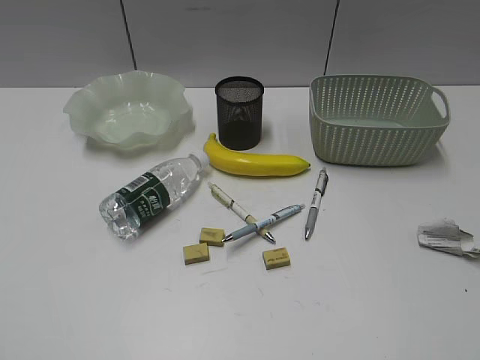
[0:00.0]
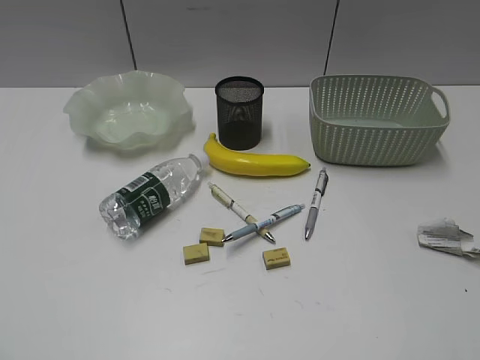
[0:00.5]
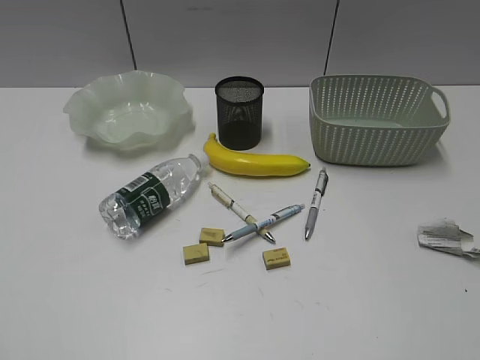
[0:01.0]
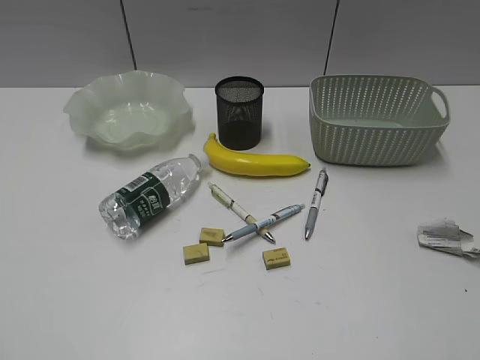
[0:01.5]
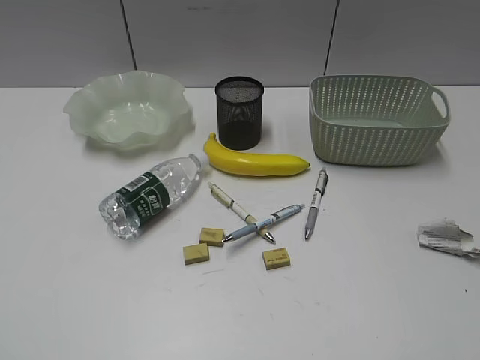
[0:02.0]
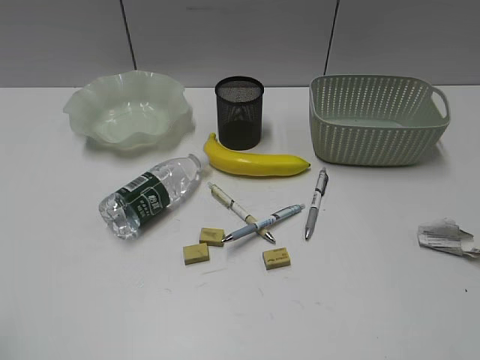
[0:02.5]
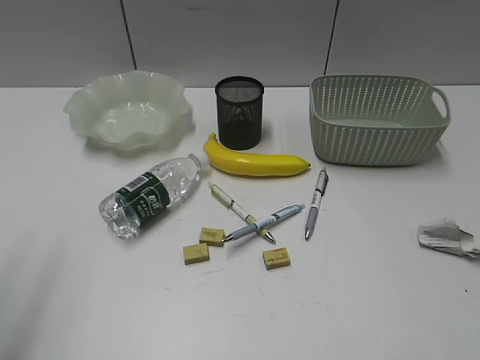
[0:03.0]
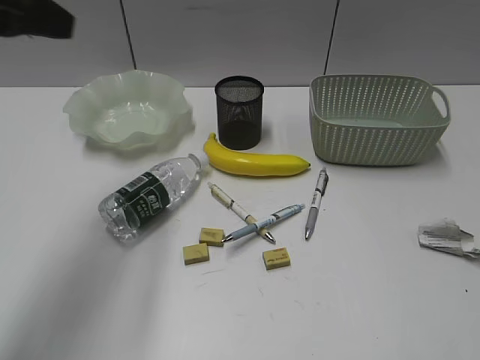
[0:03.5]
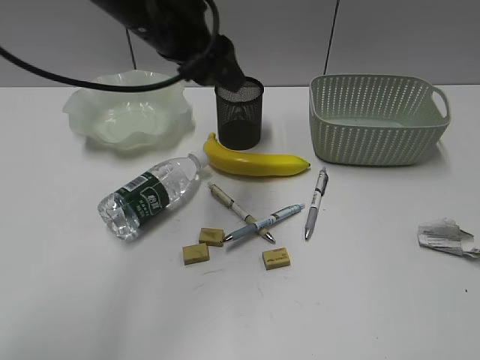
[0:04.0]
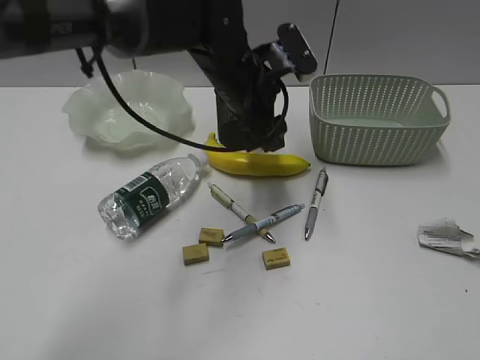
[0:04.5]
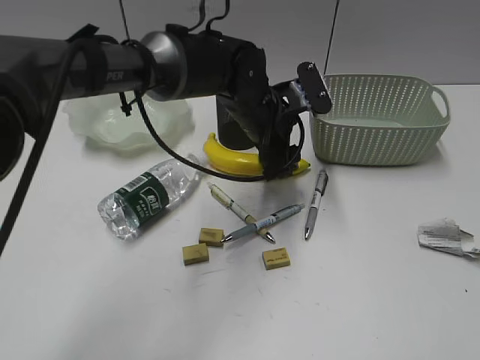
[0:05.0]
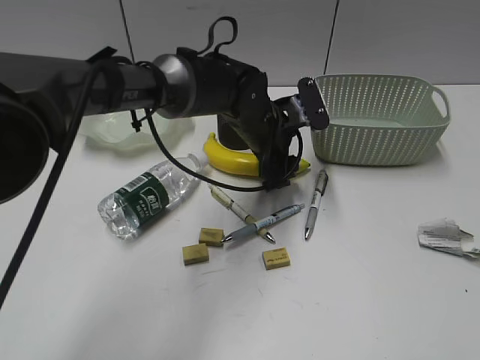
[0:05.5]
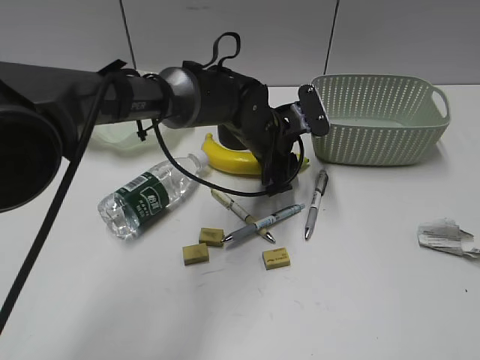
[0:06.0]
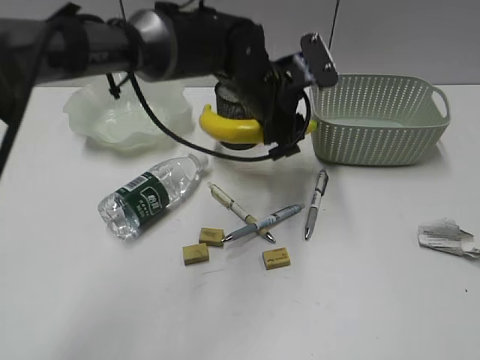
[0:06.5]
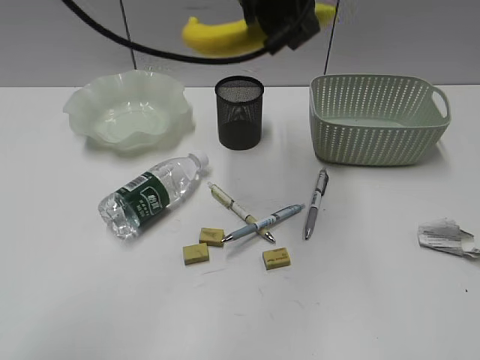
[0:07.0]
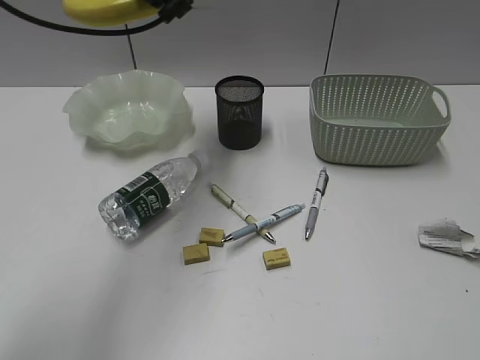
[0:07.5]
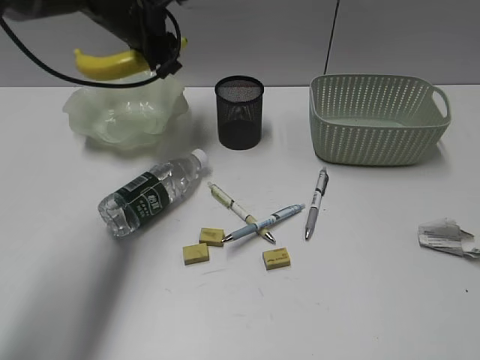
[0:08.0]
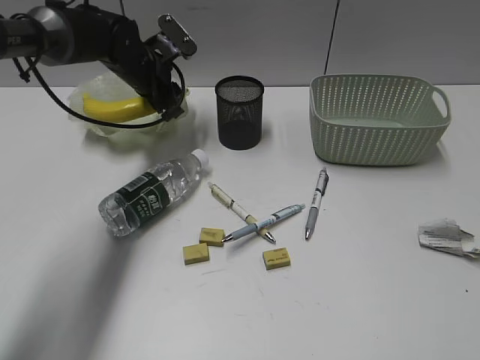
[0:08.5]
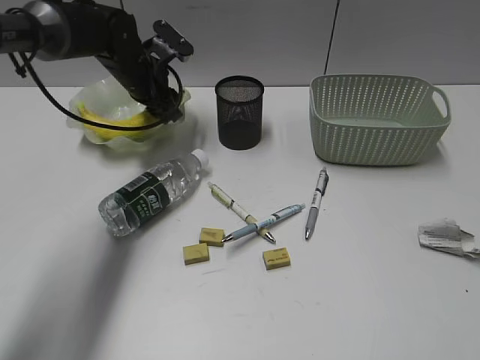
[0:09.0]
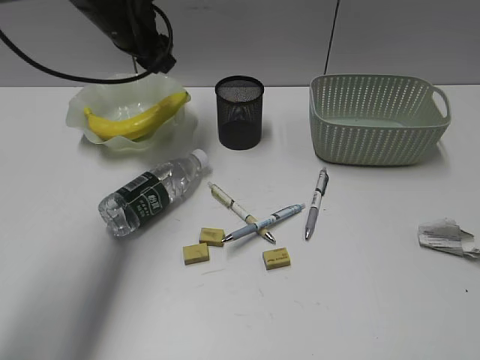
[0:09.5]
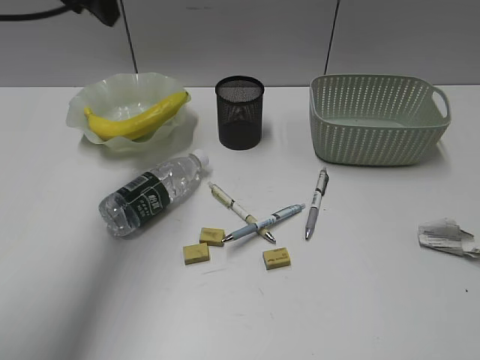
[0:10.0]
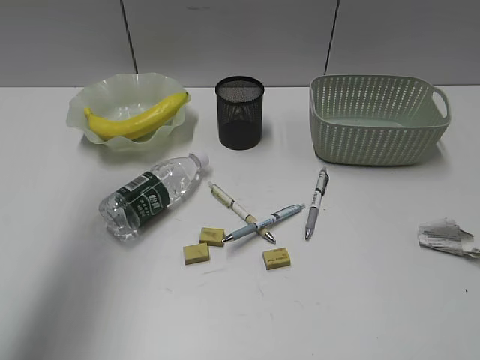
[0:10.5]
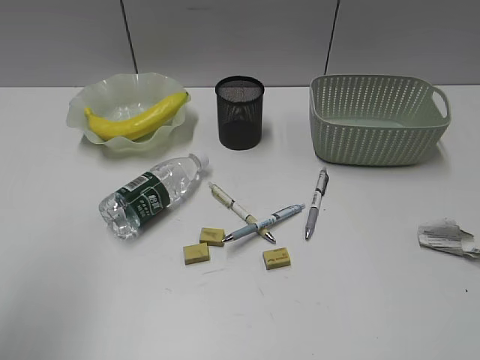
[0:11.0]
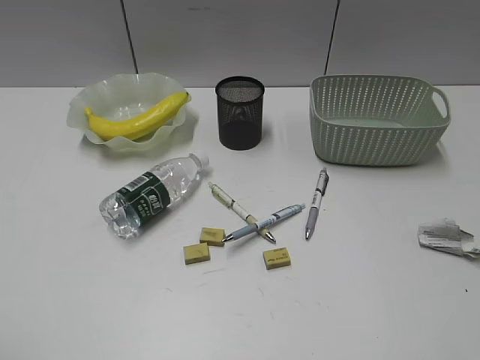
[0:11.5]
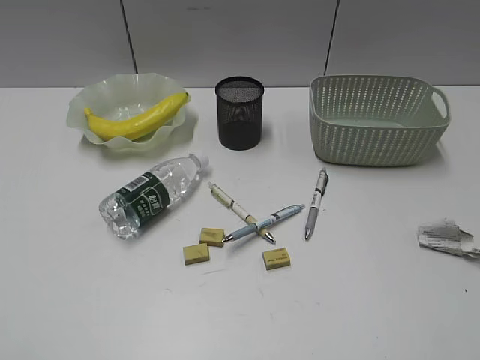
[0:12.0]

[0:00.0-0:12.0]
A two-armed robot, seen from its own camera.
Step, 0:02.5 to 0:06.0: Grasp the banana with left gripper.
Step, 0:06.5 to 0:09.0: Place the banana in the plate with left gripper.
0:02.0 to 0:04.0: The left gripper shifts about 40 cm forward and to the right, and opens.
0:04.0 to 0:06.0: The left gripper shifts roughly 20 cm downward and to the right, and closes up.
0:06.0 to 0:08.0: The left gripper shifts roughly 25 cm to the left, upward and forward.
0:08.0 to 0:10.0: The left gripper shifts about 15 cm upward and backward.
0:10.0 to 0:12.0: The left gripper travels backward by approximately 40 cm.

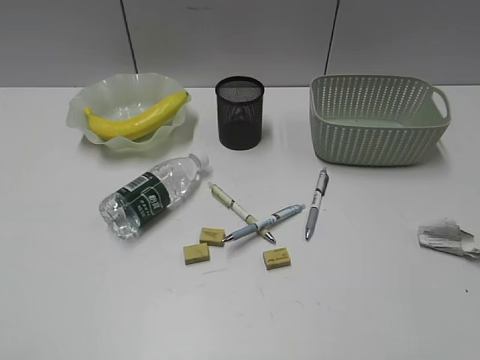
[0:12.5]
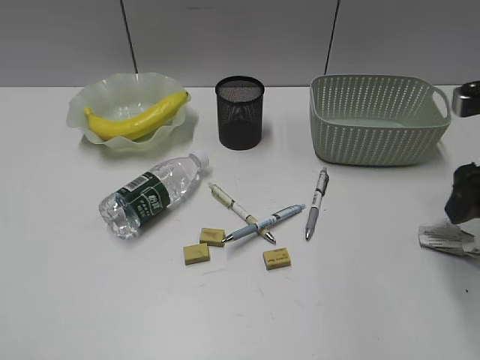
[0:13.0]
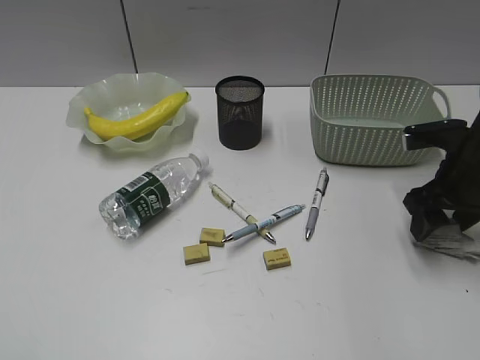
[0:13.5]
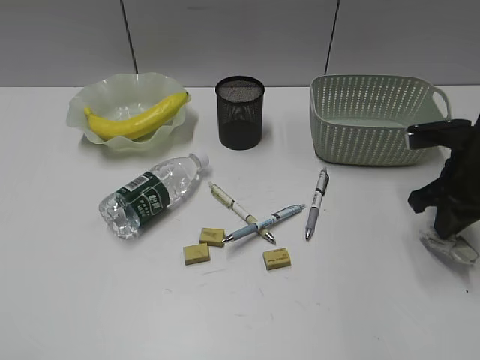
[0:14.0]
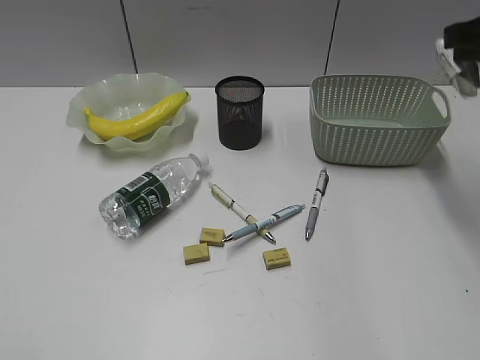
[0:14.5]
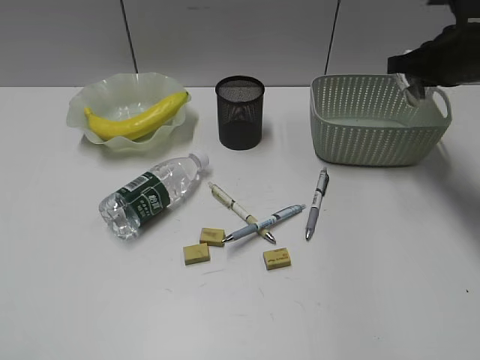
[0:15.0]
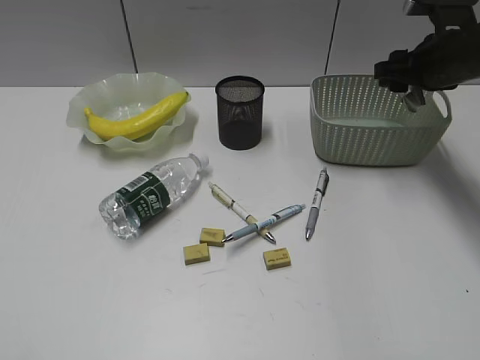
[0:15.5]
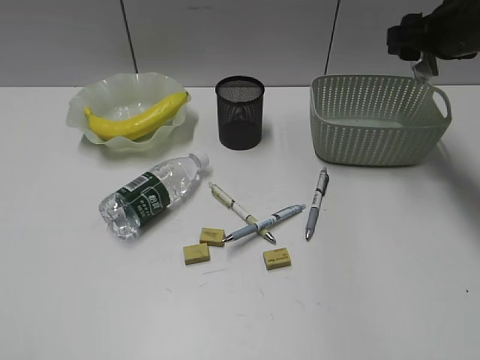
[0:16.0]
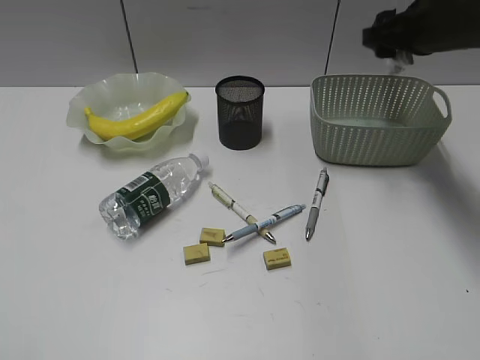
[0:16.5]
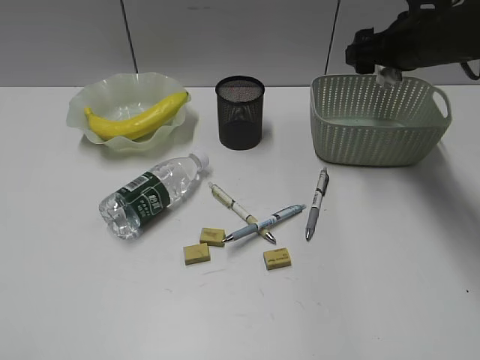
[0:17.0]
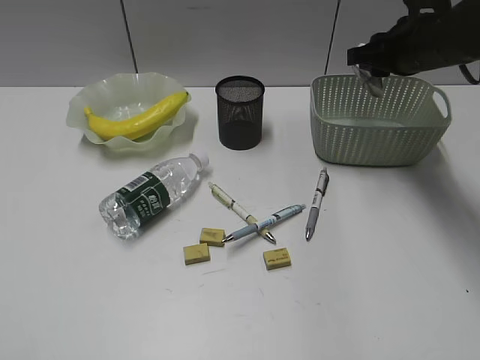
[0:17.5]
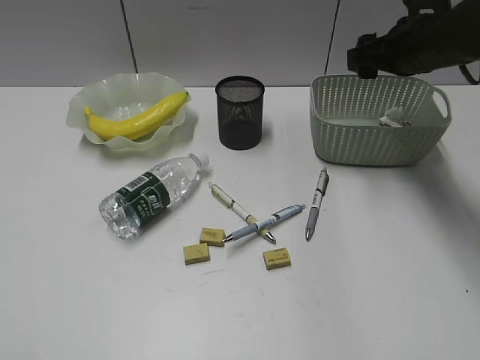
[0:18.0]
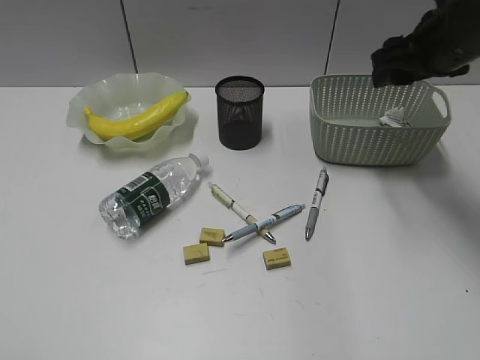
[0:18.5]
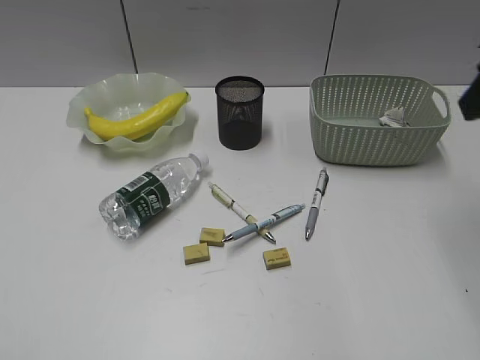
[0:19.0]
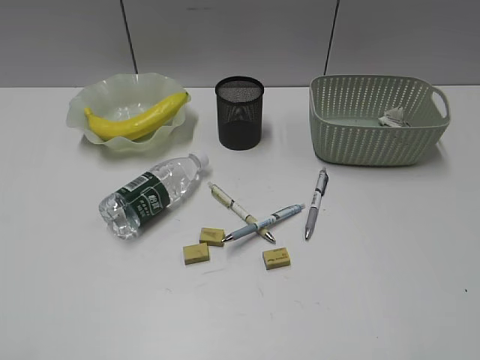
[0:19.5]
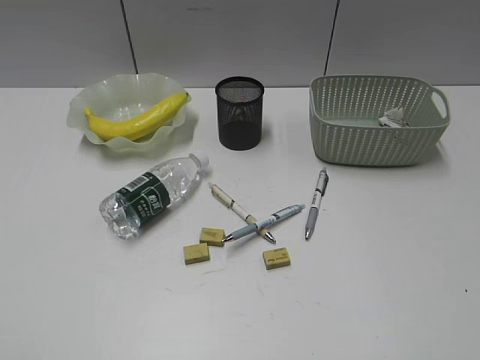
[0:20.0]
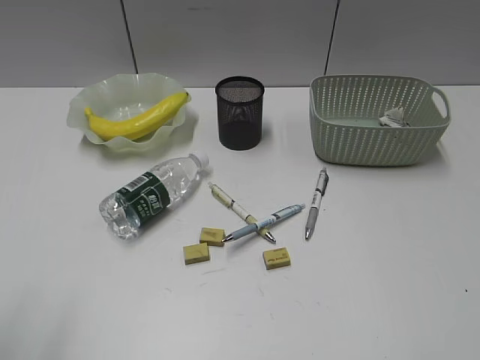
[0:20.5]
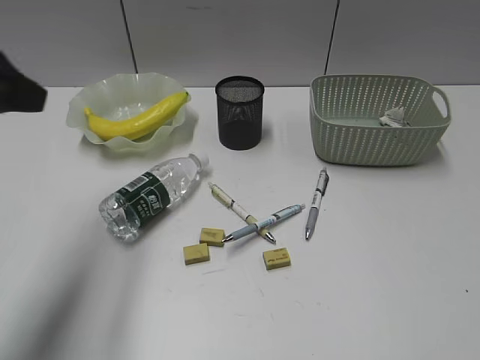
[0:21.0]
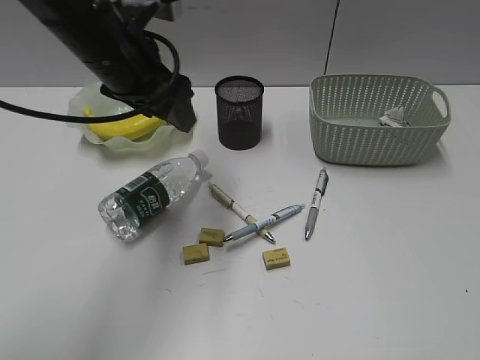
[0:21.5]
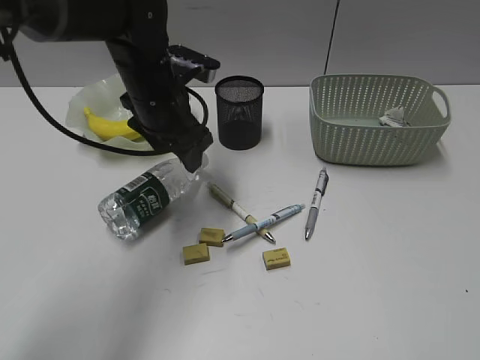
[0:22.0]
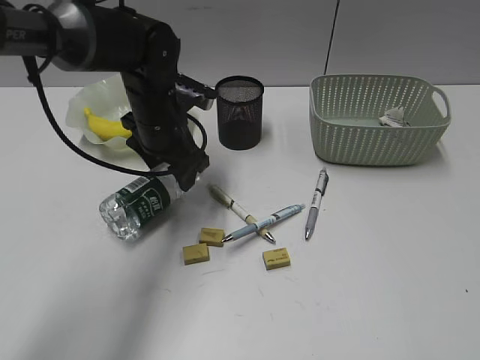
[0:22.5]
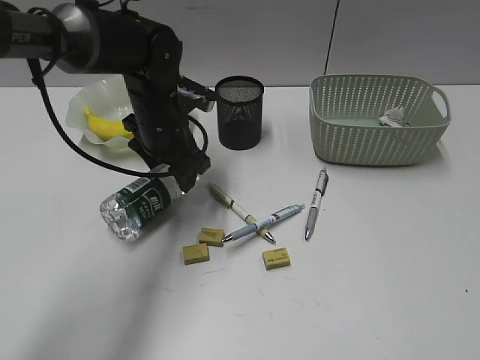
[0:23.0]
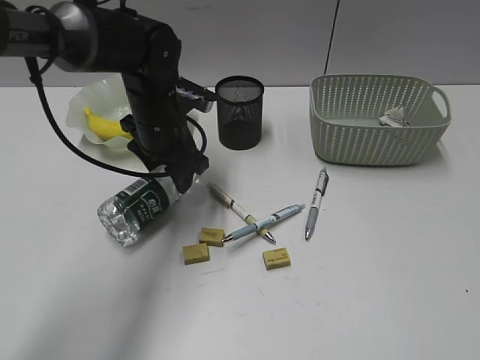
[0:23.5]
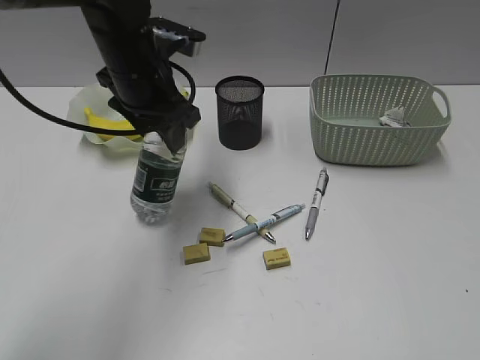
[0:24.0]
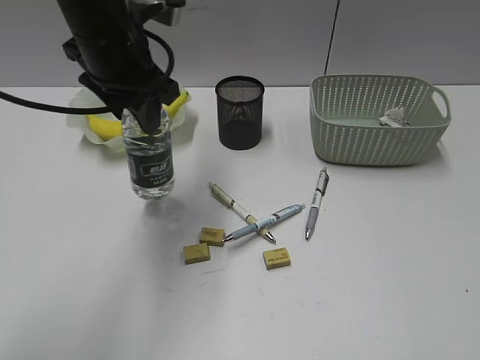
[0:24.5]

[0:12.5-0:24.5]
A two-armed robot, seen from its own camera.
Step, 0:14.0 to 0:17.5: Place the waste paper in the basket with right gripper.
Step, 0:18.0 to 0:23.0: Grasp the bottle with left gripper.
0:12.5 to 0:14.5: The right gripper travels forward by approximately 20 cm, and closes its fingers.
0:14.5 to 0:16.5: The right gripper heads forward and downward, covering roughly 10 cm, and opens its fingers.
0:16.5 to 0:18.5: The right gripper closes and opens again.
0:18.5 to 0:20.5: The right gripper is displaced backward by about 40 cm.
0:20.5 to 0:22.5: The left gripper is displaced forward, to the right and downward by some 40 cm.
0:22.5 to 0:24.5: The left gripper travels upward by roughly 15 cm, and closes up.

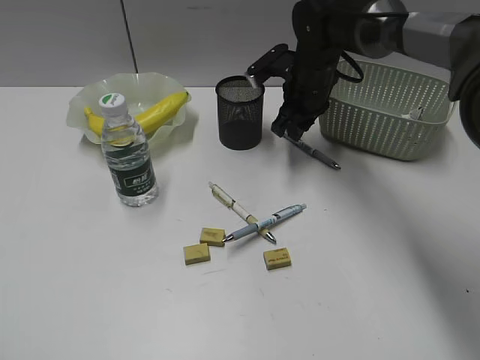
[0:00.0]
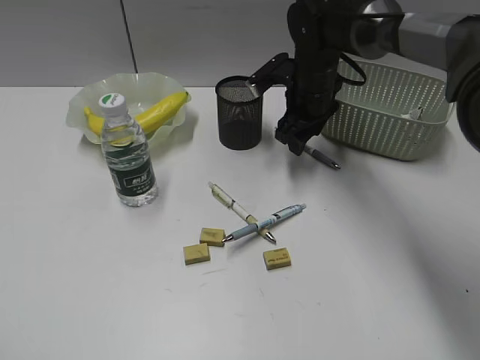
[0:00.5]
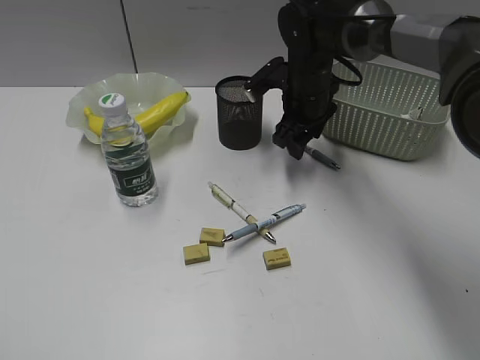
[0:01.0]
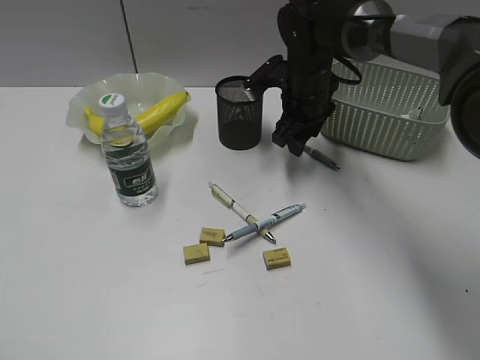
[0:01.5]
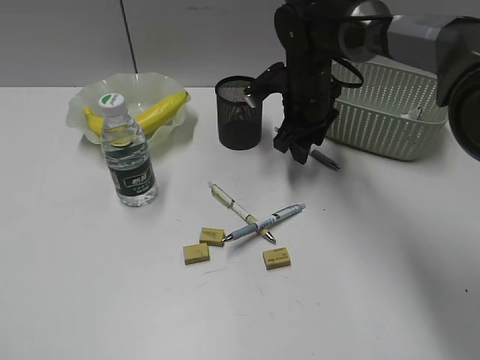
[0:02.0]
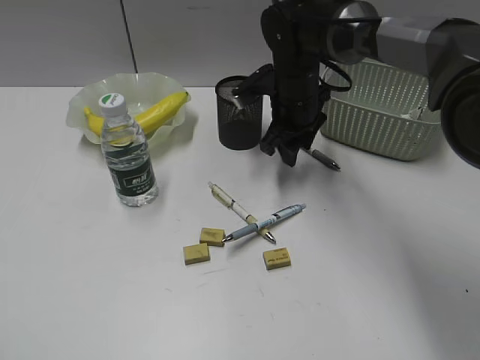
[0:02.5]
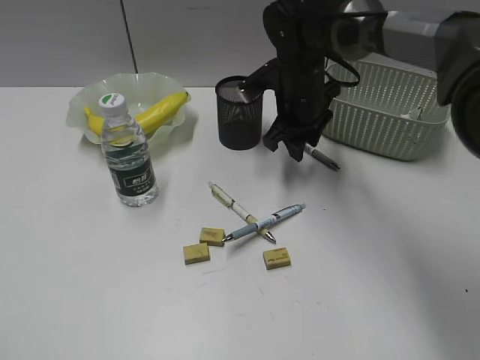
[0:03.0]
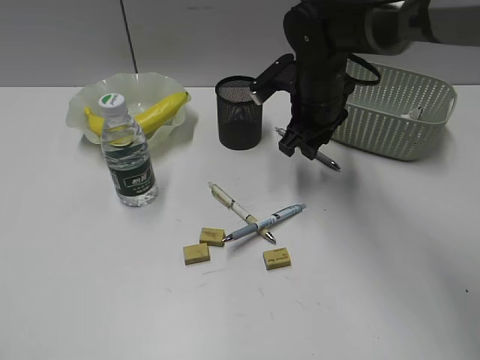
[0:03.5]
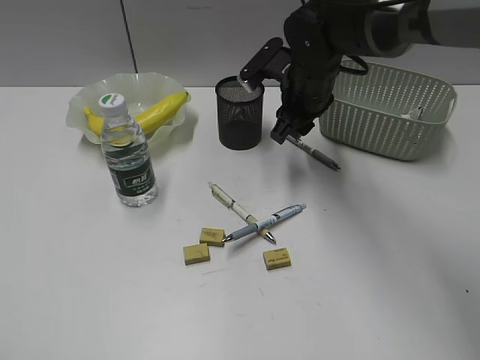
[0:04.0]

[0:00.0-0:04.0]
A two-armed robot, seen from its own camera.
0:00.0 to 0:02.0: There are only small adjustments of the grippers.
0:02.0 to 0:04.0: There are only small adjustments of the grippers.
